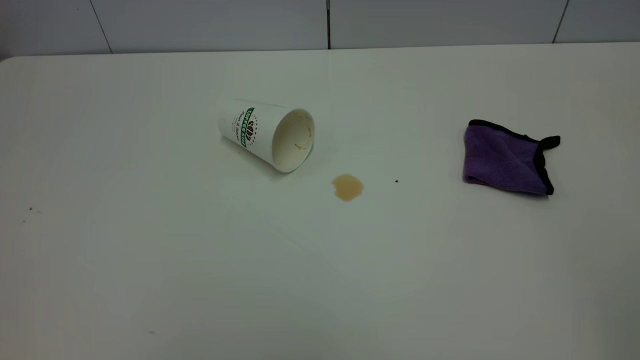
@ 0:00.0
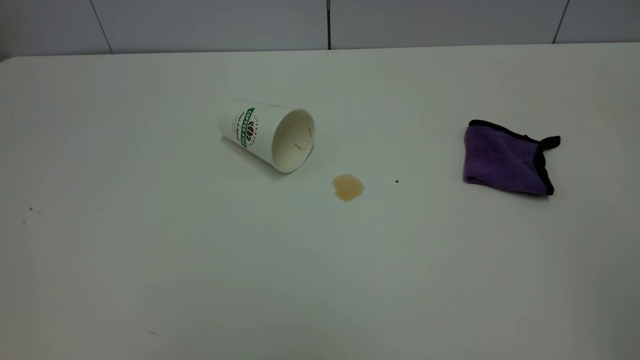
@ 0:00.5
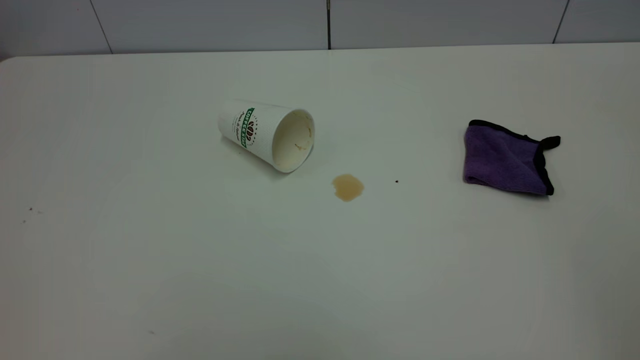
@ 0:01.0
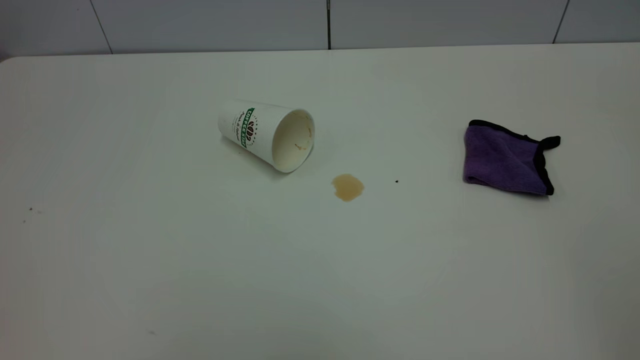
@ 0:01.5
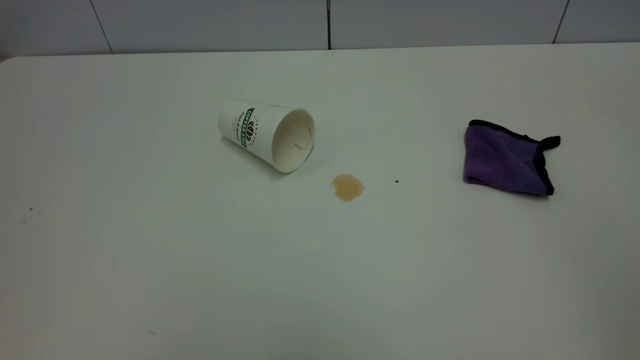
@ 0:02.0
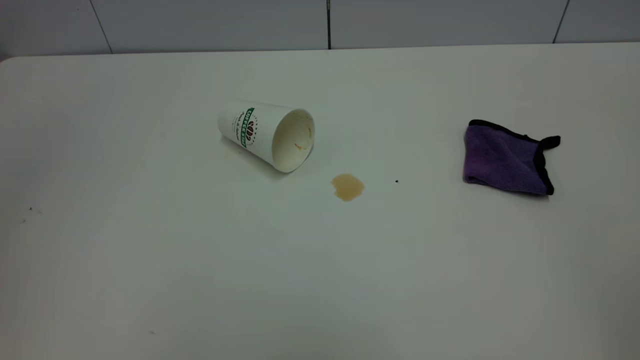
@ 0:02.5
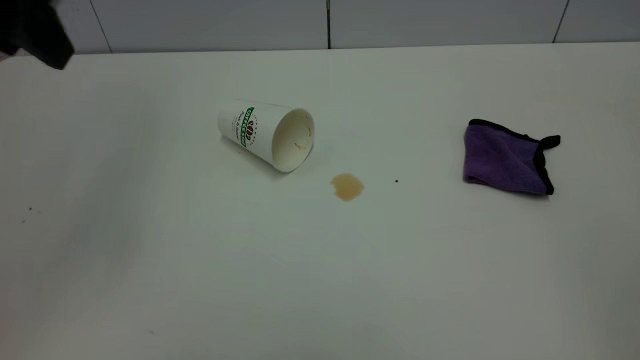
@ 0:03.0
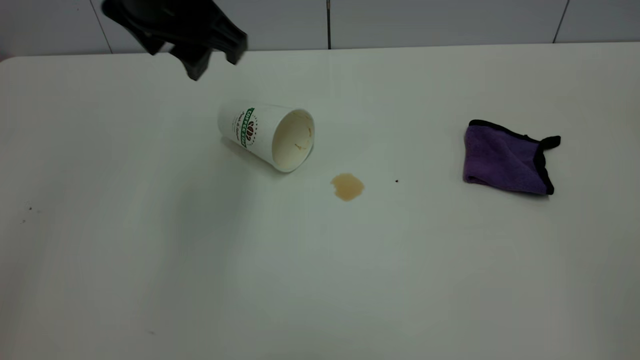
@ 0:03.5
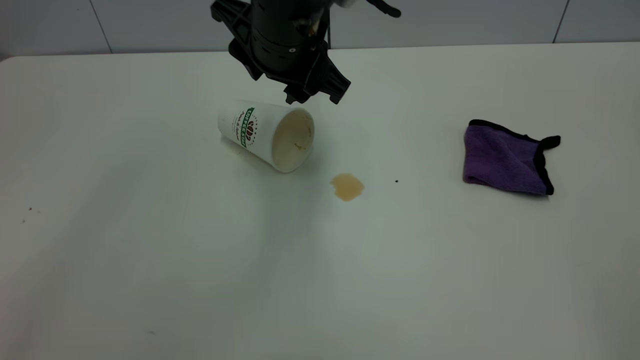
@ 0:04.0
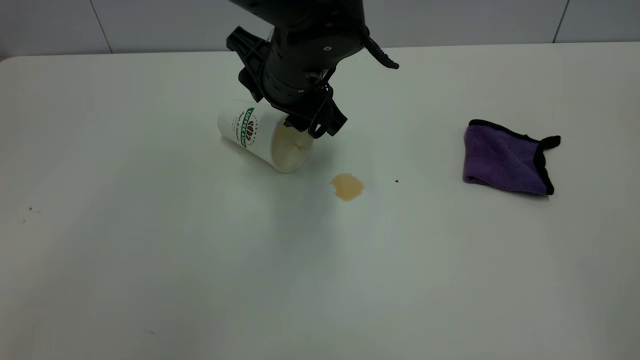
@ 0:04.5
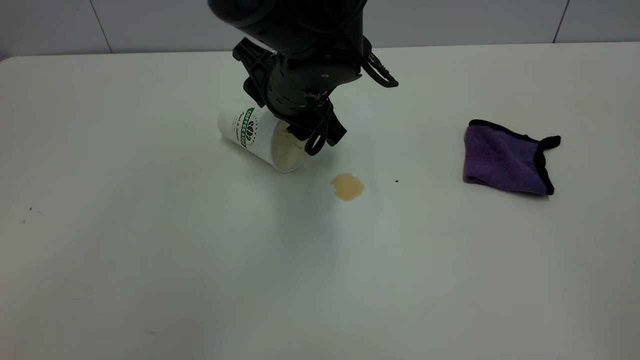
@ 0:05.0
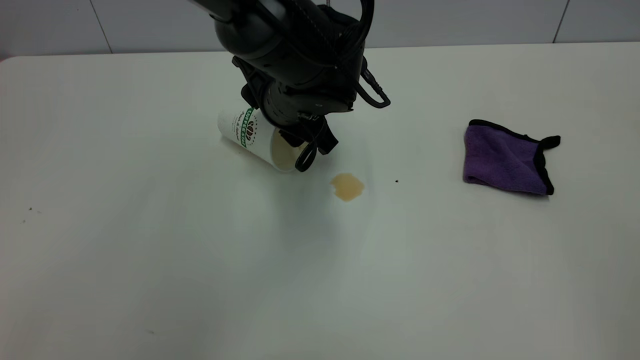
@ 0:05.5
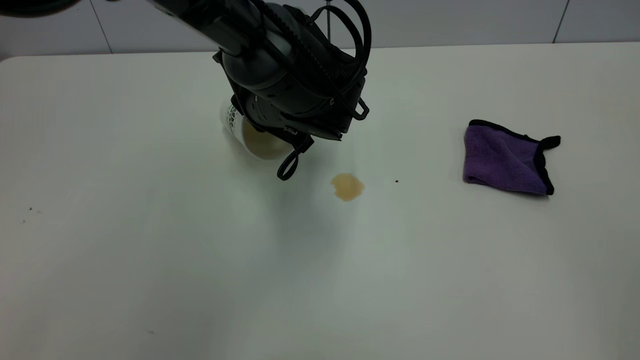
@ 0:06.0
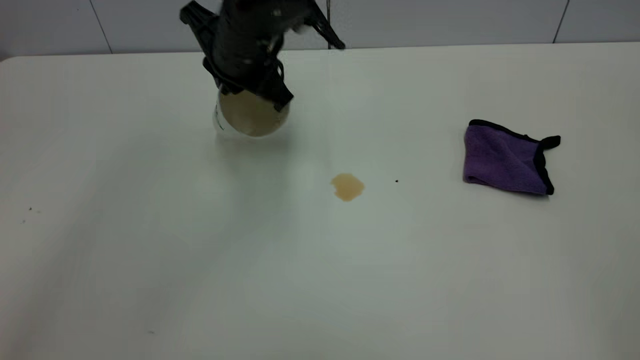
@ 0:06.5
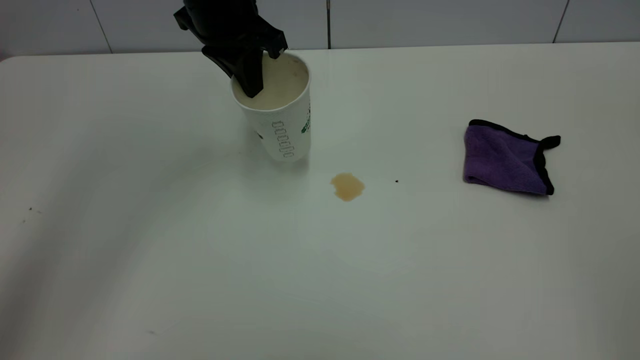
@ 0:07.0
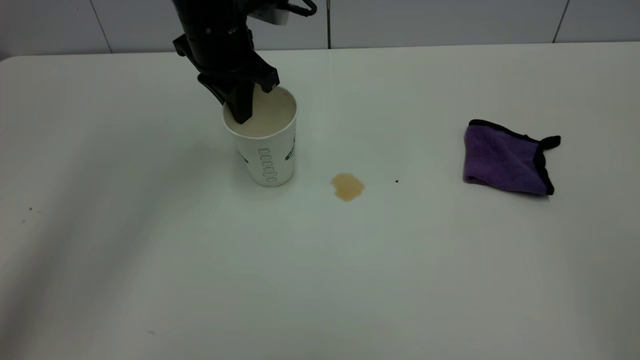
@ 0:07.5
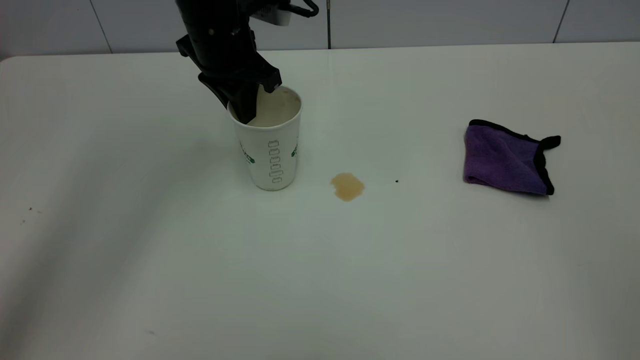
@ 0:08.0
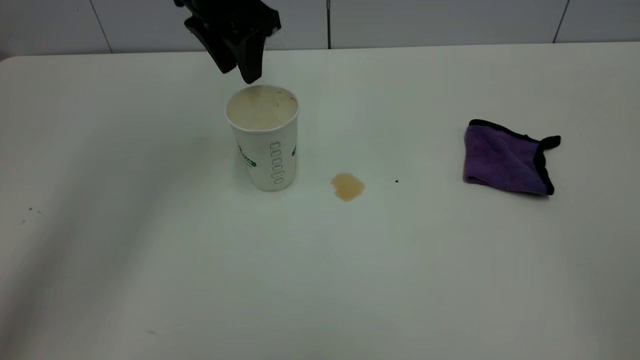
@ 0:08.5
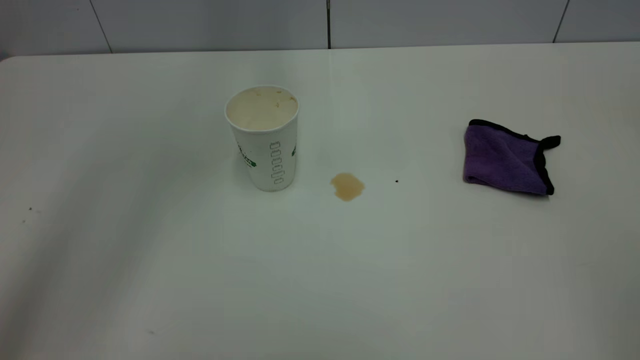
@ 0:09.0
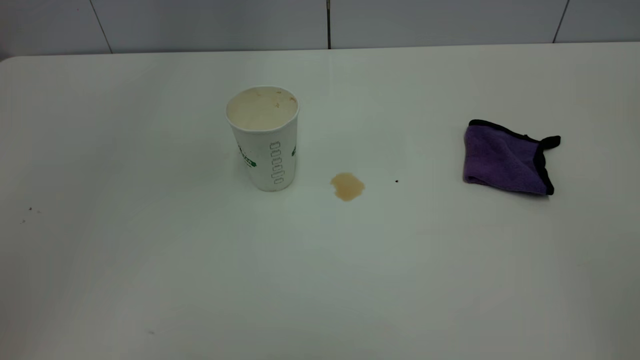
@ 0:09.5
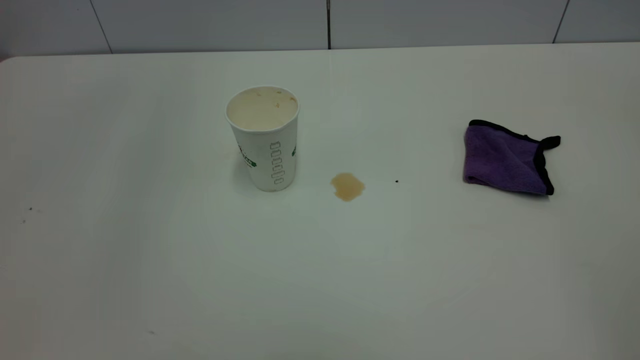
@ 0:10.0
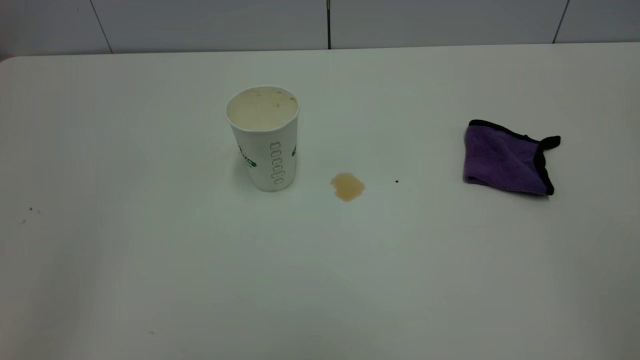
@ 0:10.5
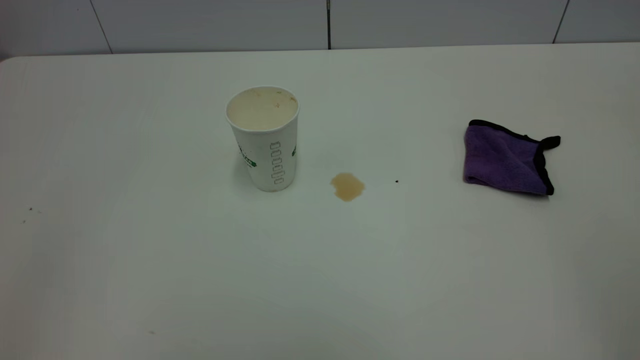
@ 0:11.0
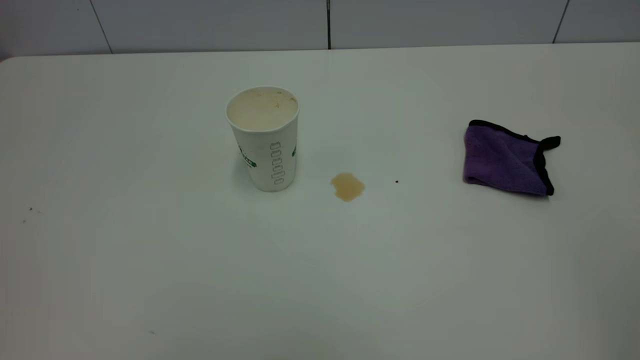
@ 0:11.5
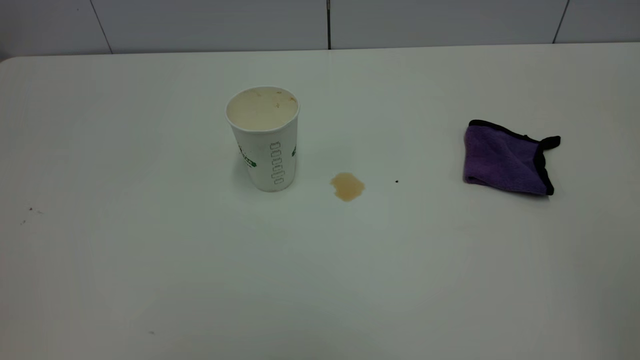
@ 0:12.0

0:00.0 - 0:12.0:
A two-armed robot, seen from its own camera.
Task of the whole recording: the left gripper pick up the fallen cup and place it upright, the right gripper grasp the purple rag and wipe the tea stain on the table, the right gripper put the purple rag back in its original position.
Step, 0:00.0 - 0:08.5: Stand the paper cup upright.
0:02.0 - 0:04.0: The left gripper goes approximately 50 cm forward, to the right and downward.
0:04.0 - 0:06.0: The left gripper is displaced downward by roughly 10 cm, and closes its fingers.
0:06.0 - 0:08.0: The left gripper is displaced to the left, upward and forward by about 15 cm.
0:08.0 - 0:10.0: The left gripper shifts approximately 35 cm upward and backward, and opens its fingers.

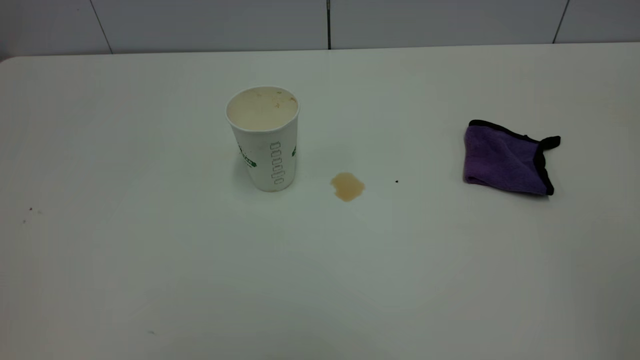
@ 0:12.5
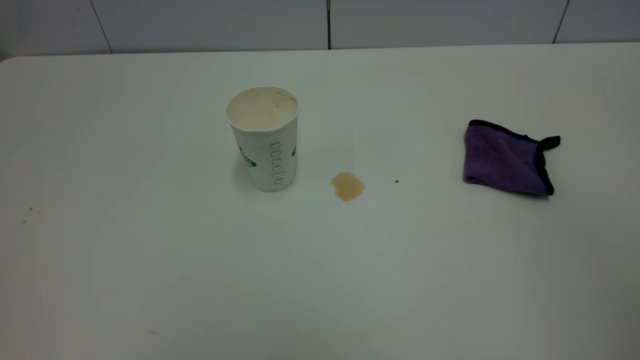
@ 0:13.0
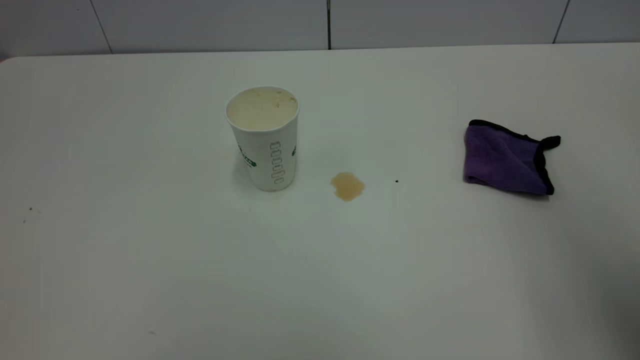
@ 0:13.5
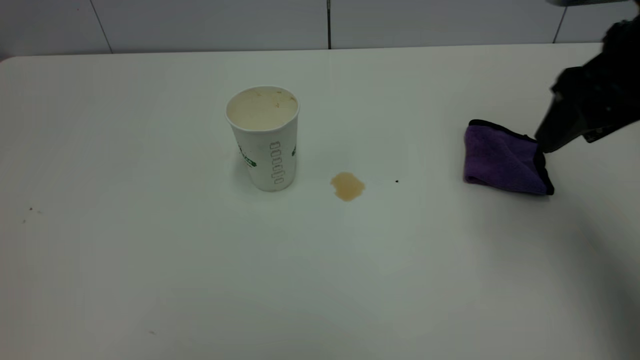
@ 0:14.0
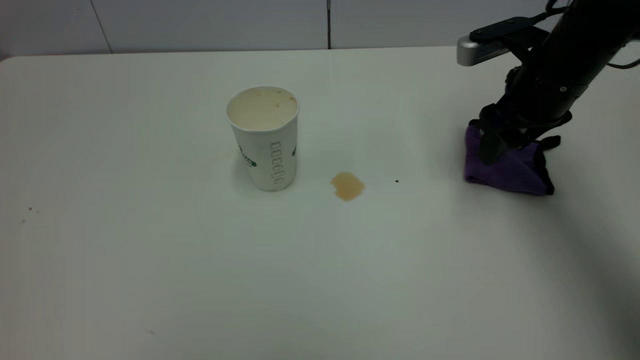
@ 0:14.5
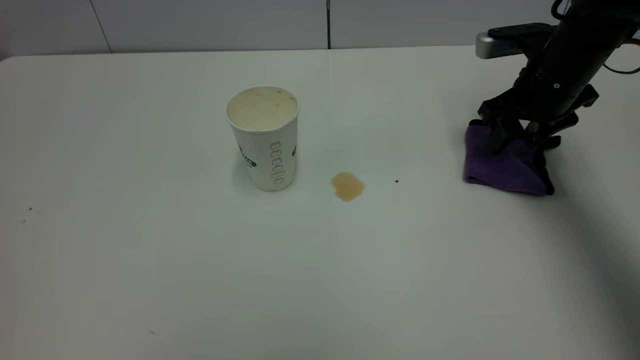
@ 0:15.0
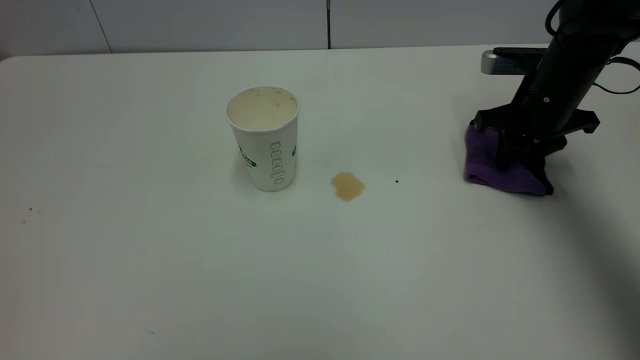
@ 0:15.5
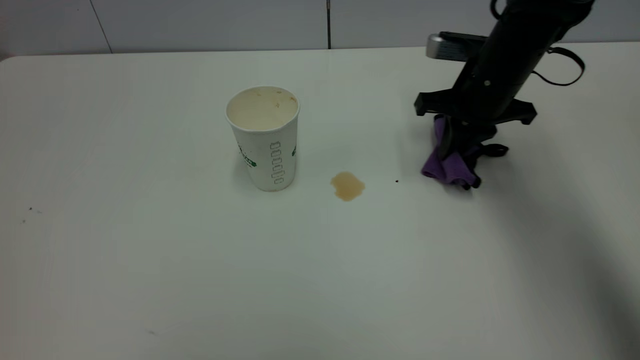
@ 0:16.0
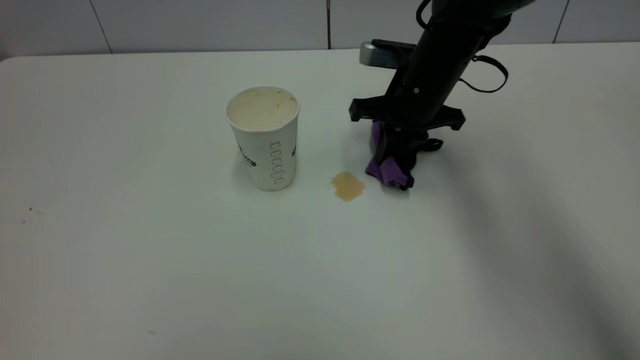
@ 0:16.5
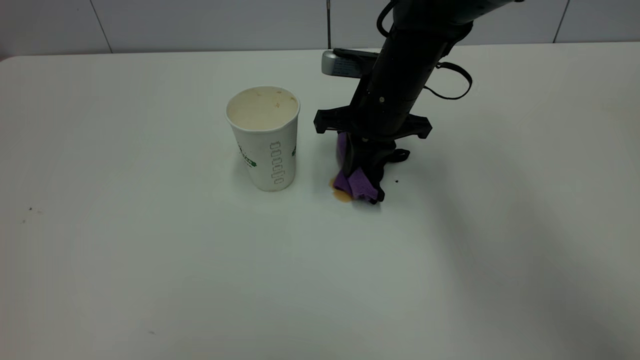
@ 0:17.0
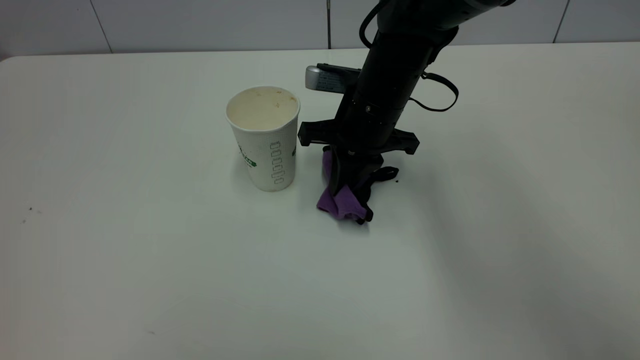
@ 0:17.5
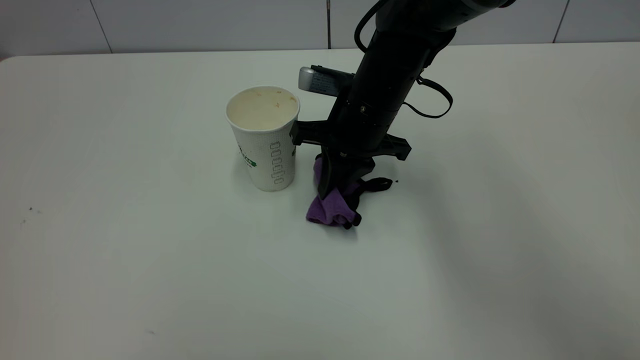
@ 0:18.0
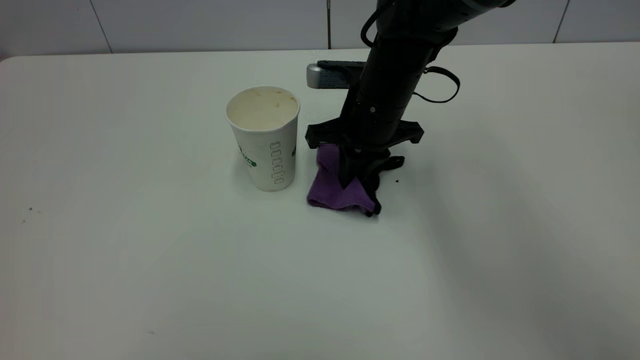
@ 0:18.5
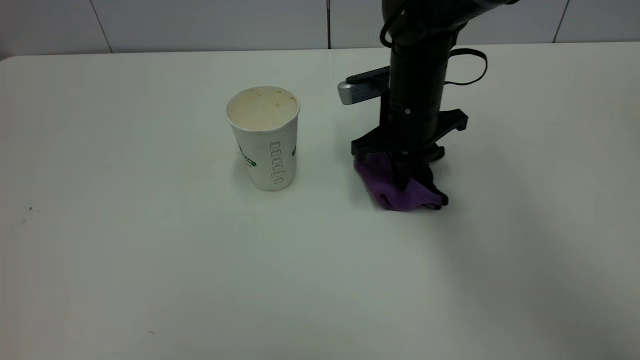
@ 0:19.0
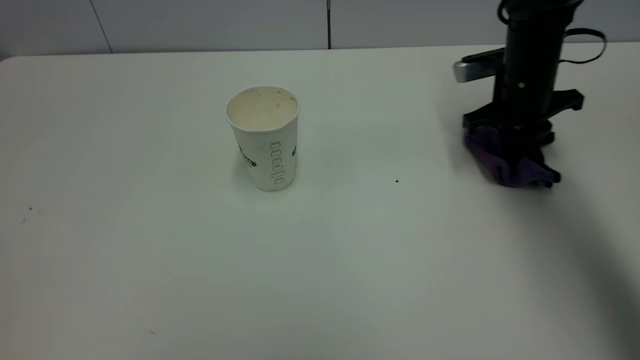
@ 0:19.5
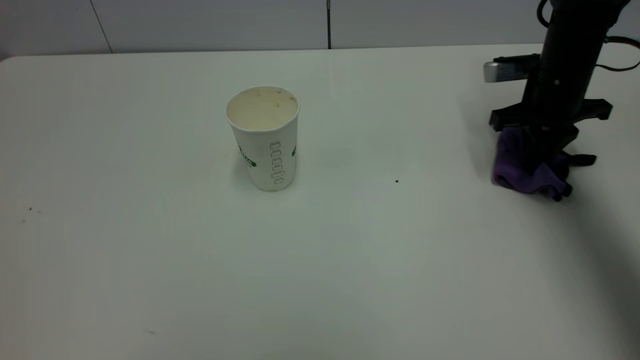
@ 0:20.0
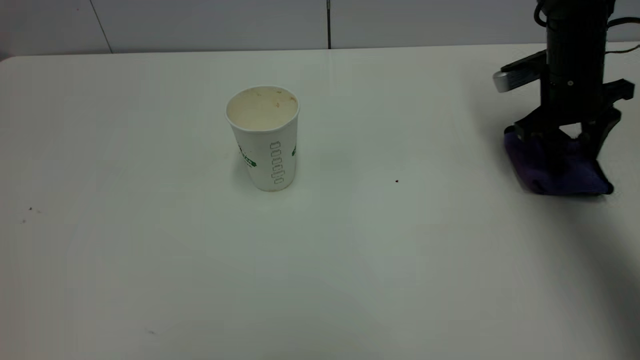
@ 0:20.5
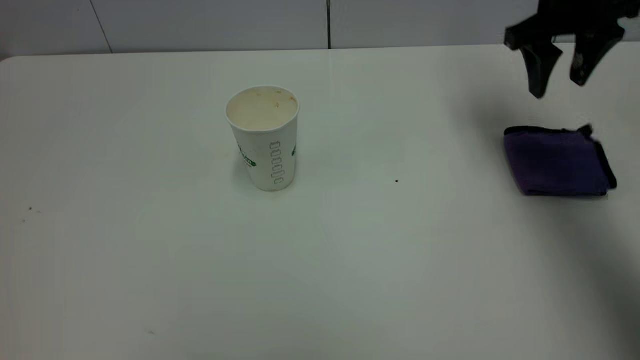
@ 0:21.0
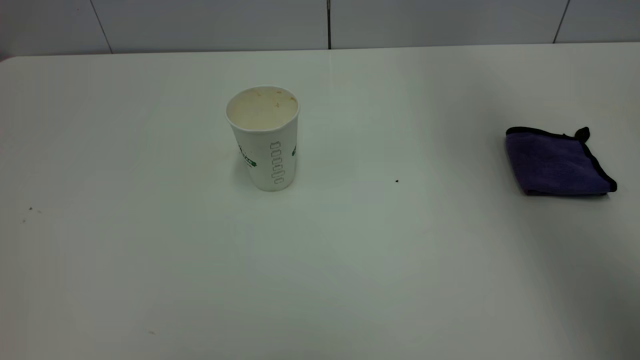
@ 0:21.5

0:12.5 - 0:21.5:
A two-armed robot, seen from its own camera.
Task of the whole recording: the left gripper pick up the fallen cup and place it upright, the right gripper grasp the purple rag and wipe the tea stain on the table, the right gripper put the purple rag back in its original position.
Step, 0:12.5 - 0:21.0: Wipe the stains off the table with a rag.
0:12.5 - 0:14.5: The right gripper travels forward and downward by some 50 cm.
0:14.5 - 0:17.0: The right gripper goes approximately 15 cm to the left, and closes up.
0:17.0 - 0:19.5: The right gripper travels to the right by about 15 cm.
0:19.5 - 0:21.5: The right gripper travels upward by about 30 cm, and opens its fingers.
